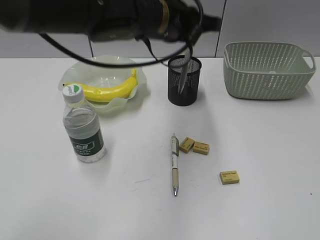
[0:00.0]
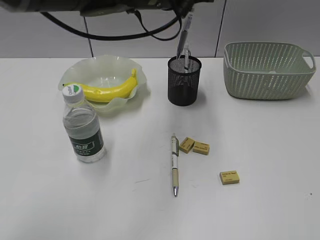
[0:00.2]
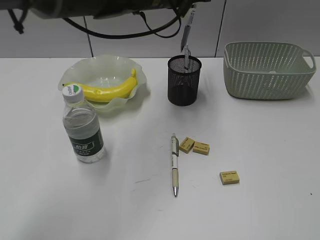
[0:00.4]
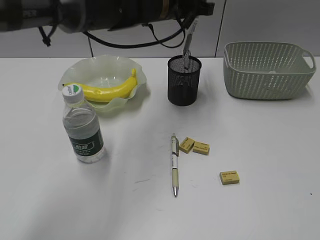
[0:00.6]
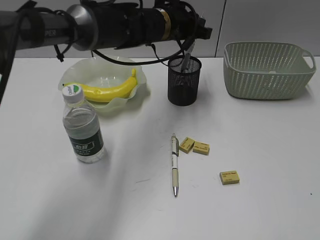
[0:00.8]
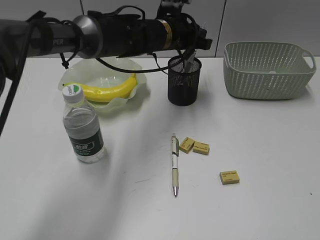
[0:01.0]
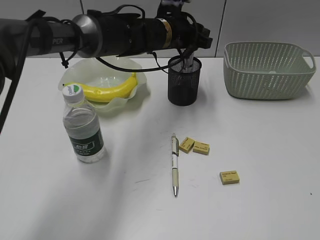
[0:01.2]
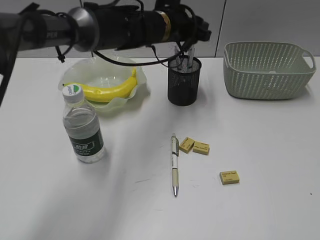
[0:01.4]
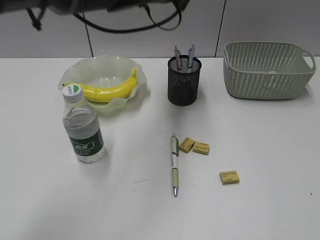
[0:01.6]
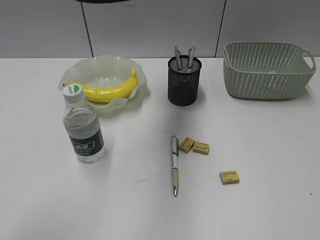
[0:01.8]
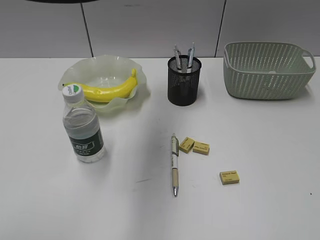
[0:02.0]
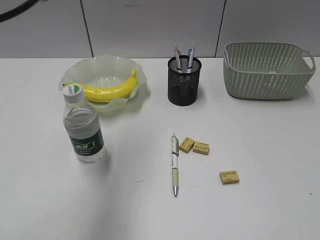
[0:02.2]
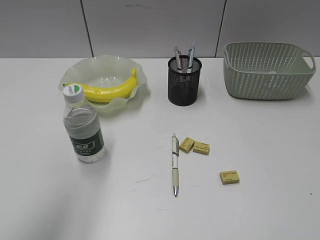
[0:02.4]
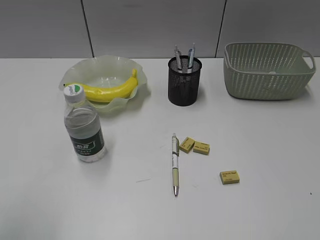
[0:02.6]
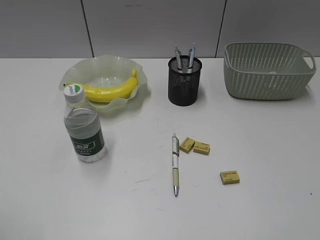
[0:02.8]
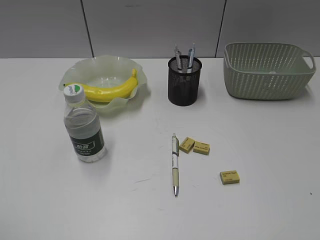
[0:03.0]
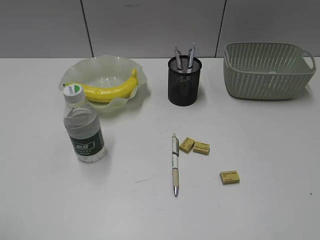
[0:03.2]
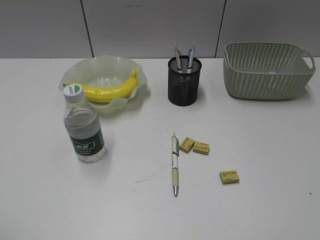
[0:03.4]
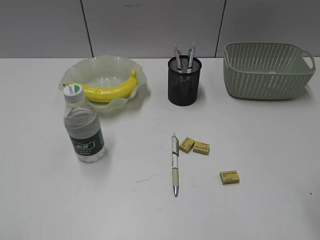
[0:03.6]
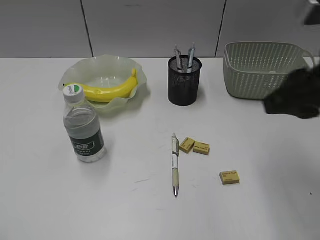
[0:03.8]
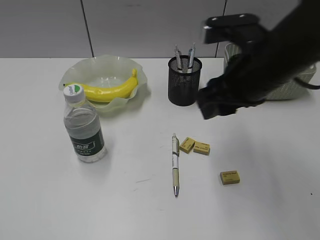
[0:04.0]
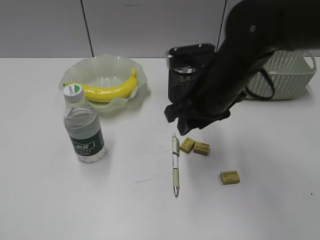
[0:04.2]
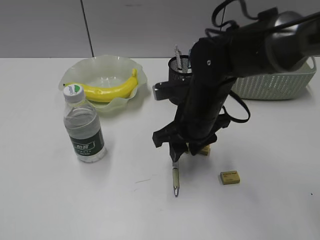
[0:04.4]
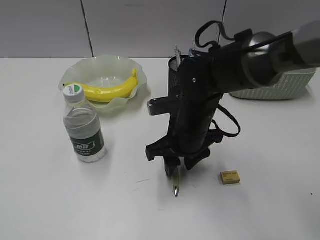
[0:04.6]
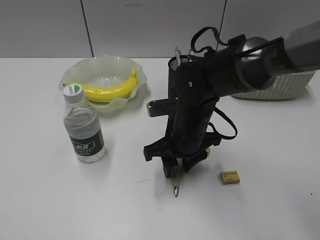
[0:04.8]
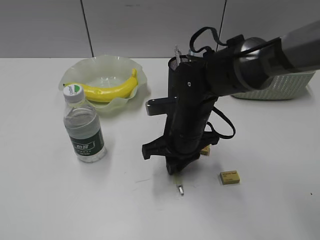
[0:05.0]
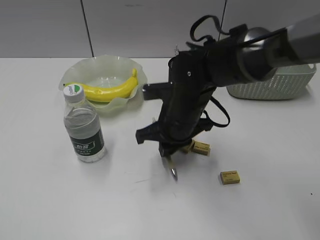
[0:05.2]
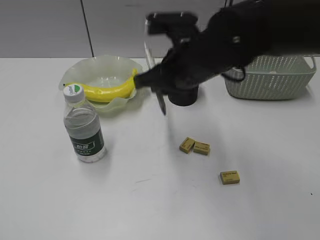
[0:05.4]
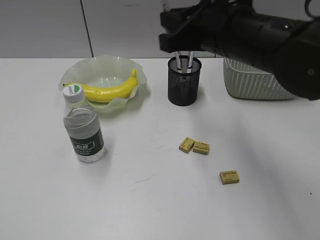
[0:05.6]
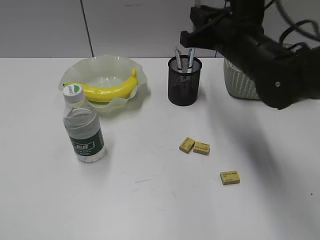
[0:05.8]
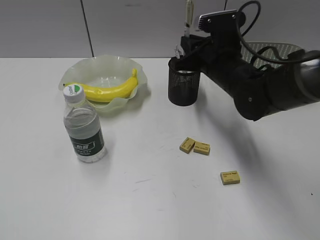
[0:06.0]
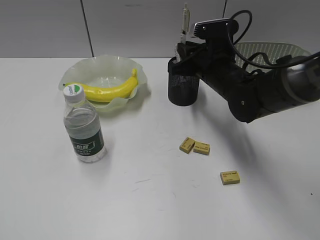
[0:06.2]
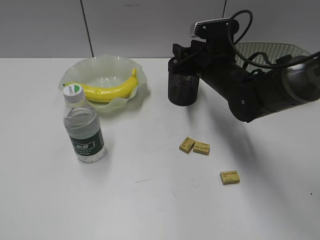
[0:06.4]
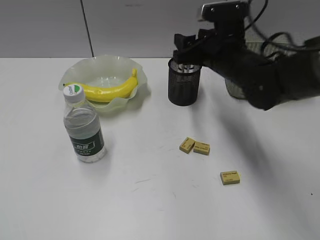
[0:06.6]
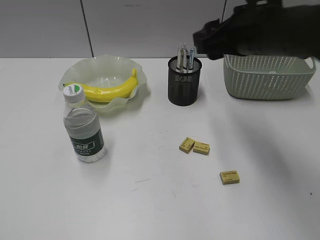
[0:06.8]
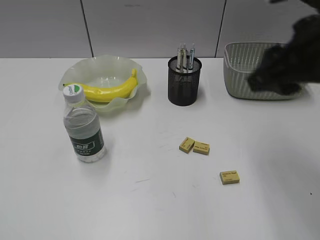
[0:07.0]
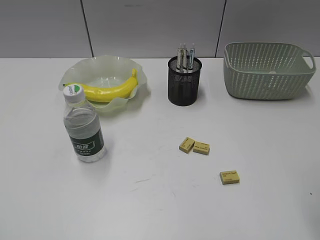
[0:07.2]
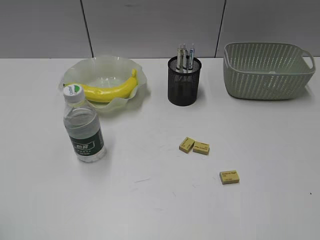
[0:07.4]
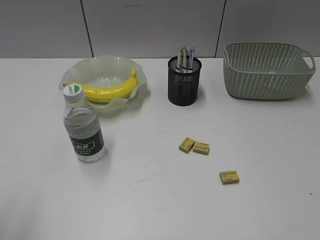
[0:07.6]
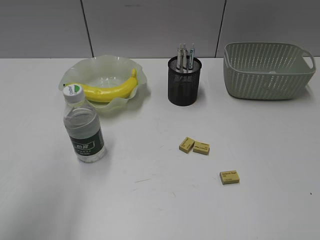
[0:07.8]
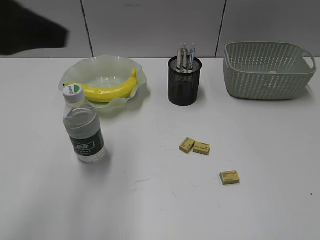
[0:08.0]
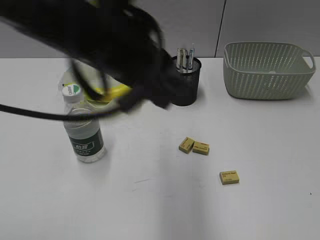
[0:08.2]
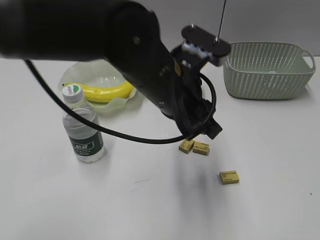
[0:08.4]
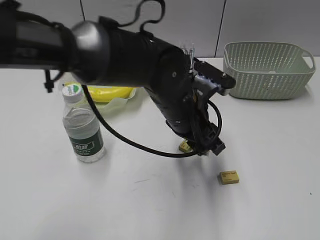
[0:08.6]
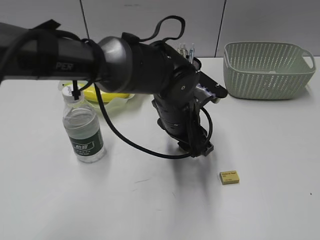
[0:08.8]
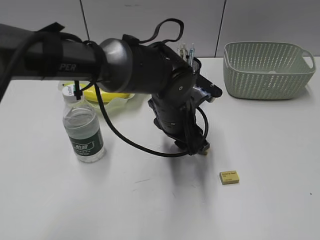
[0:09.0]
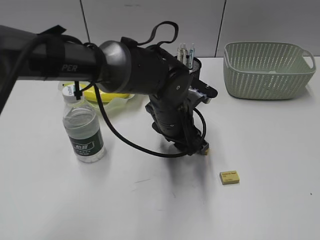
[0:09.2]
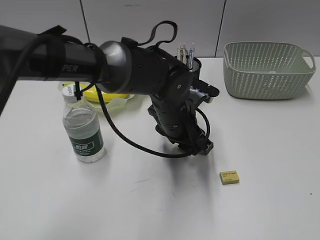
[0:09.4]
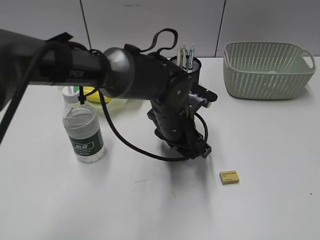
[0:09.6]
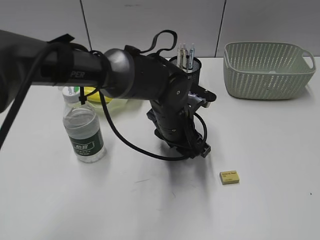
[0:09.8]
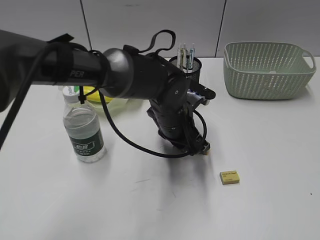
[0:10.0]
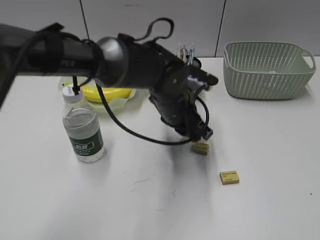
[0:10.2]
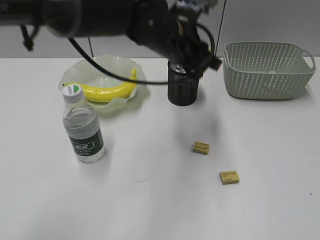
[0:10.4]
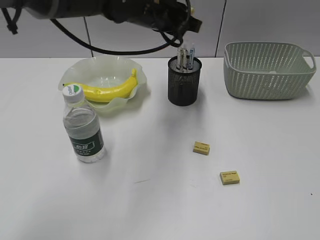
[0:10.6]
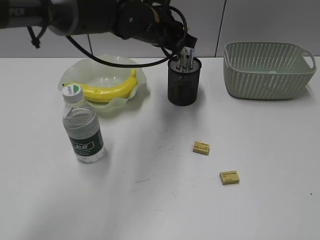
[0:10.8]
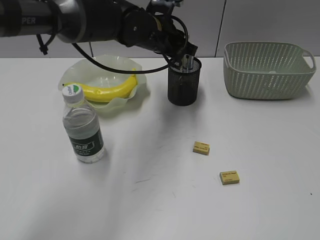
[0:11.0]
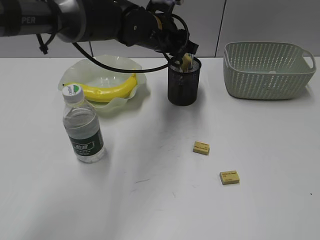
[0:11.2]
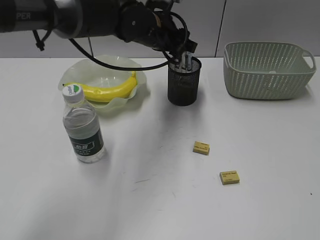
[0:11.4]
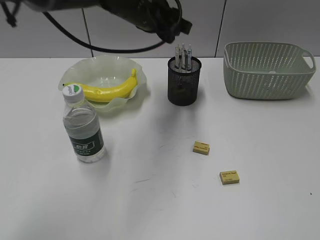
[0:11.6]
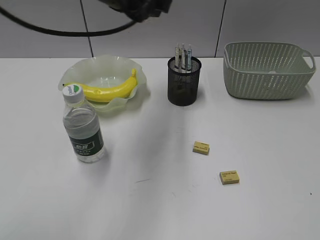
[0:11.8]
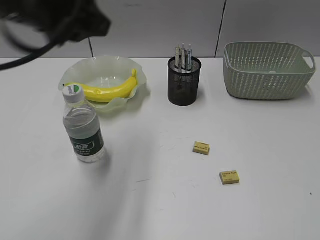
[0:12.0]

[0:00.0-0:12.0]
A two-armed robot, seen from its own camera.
Step, 0:00.0 to 0:01.4: Place the blue pen in pen holder with left gripper.
Step, 0:01.6 to 0:05.0: Grasp the yellow pen with right gripper.
Step, 0:05.2 to 0:06.6: Place the yellow pen in pen holder with right gripper.
Step, 0:06.8 to 0:10.0: Grasp the eraser with left gripper.
Step, 0:10.2 to 0:11.4: Place the eraser in pen holder with left gripper.
0:00.0 to 0:01.6: The left gripper shifts about 10 cm forward, and opens.
0:01.6 to 0:03.0: The left gripper heads backward and to the left, covering approximately 50 cm, and opens its fingers.
0:03.0 to 0:04.4: The right gripper travels forward, to the left and downward by approximately 40 cm.
0:04.4 to 0:06.0: The right gripper is displaced forward and to the right by about 10 cm, goes upward and returns, about 15 cm each way, and closes its fingers.
0:06.0 to 0:07.6: The right gripper heads backward and to the right, covering some 40 cm, and opens; the left gripper moves forward, some 5 cm.
0:07.6 to 0:09.0: The left gripper moves to the right, forward and downward, approximately 50 cm.
0:09.0 to 0:10.4: The left gripper is displaced upward by some 10 cm, and closes up.
0:10.4 to 0:12.0: The left gripper goes roughly 20 cm to the left, upward and backward.

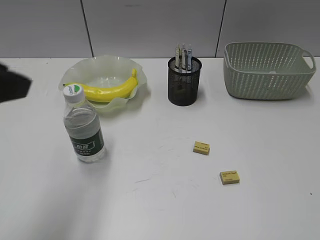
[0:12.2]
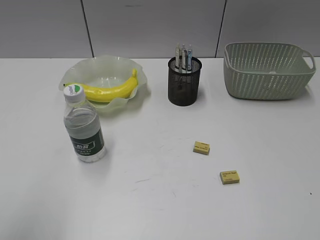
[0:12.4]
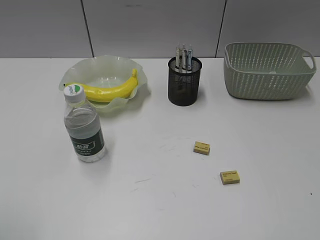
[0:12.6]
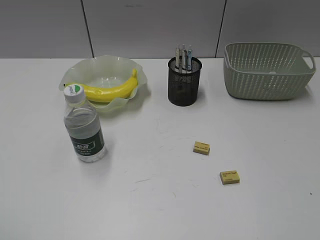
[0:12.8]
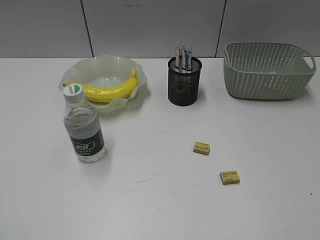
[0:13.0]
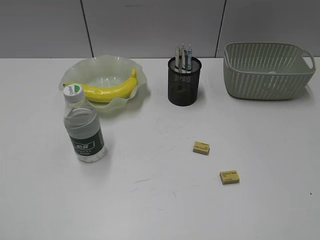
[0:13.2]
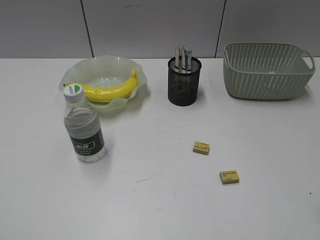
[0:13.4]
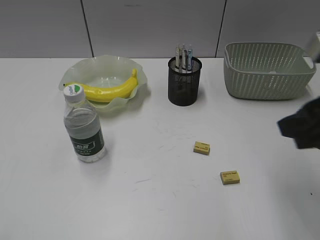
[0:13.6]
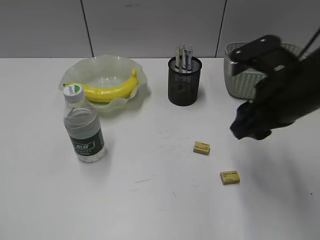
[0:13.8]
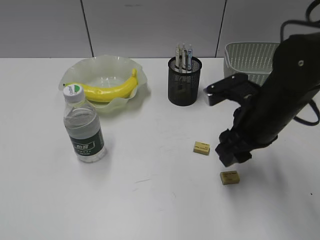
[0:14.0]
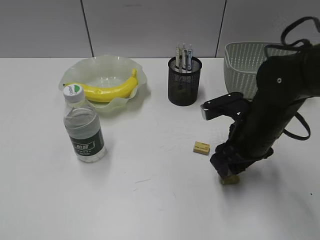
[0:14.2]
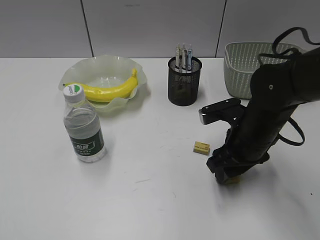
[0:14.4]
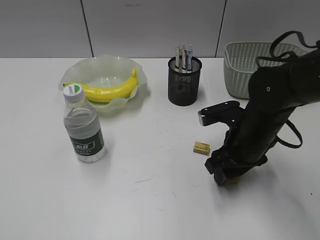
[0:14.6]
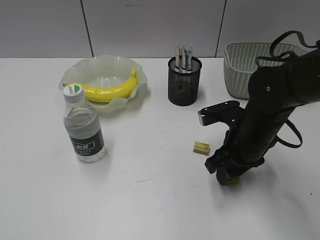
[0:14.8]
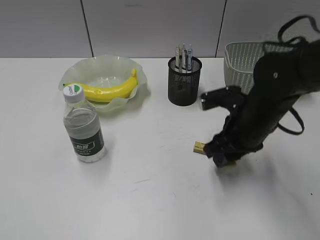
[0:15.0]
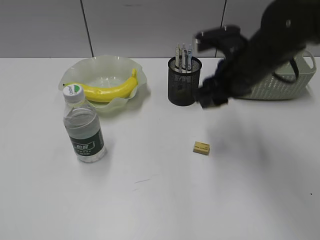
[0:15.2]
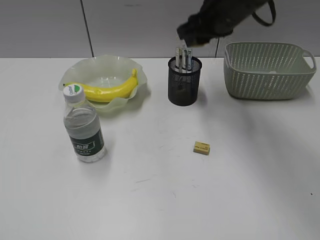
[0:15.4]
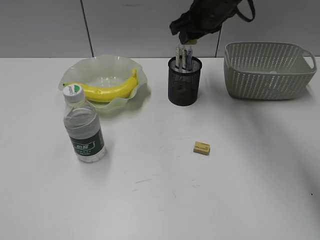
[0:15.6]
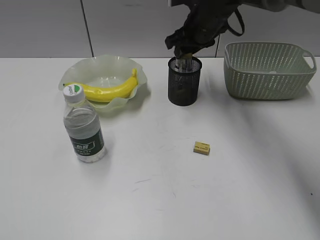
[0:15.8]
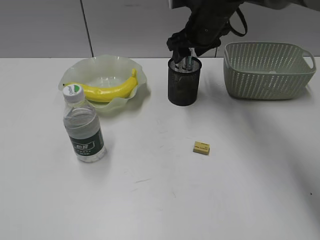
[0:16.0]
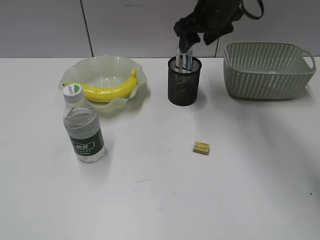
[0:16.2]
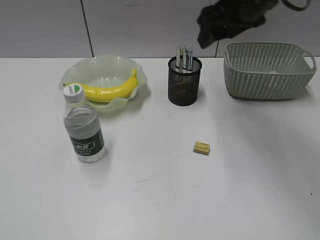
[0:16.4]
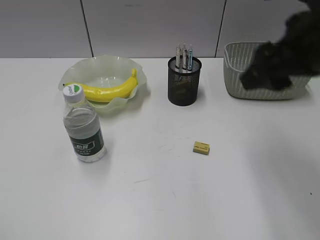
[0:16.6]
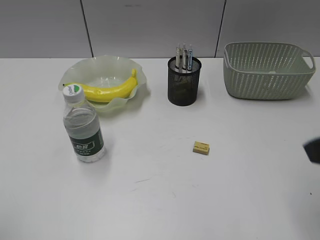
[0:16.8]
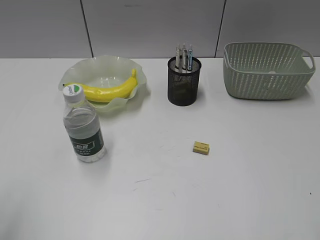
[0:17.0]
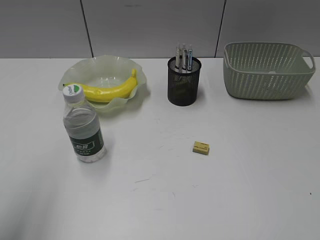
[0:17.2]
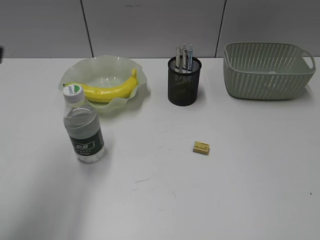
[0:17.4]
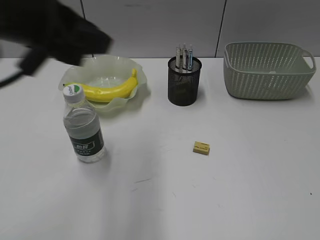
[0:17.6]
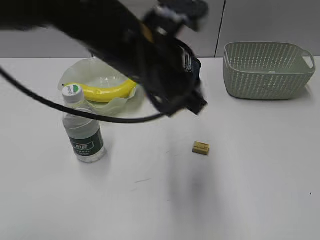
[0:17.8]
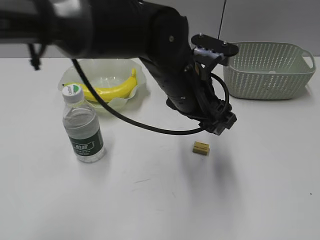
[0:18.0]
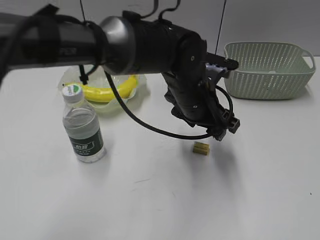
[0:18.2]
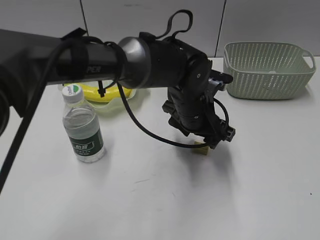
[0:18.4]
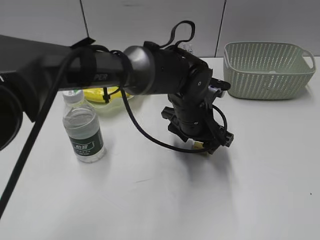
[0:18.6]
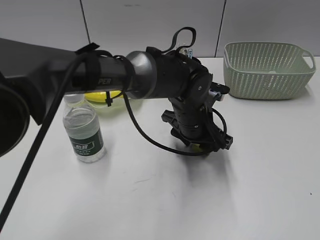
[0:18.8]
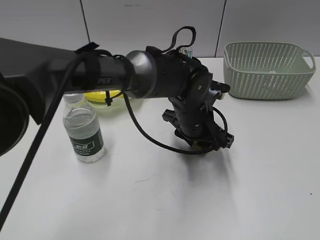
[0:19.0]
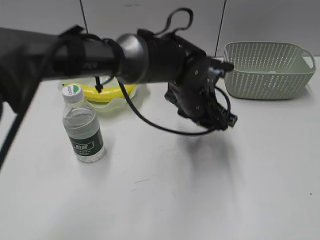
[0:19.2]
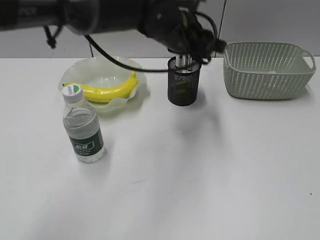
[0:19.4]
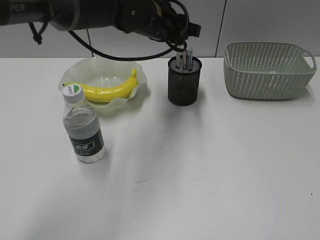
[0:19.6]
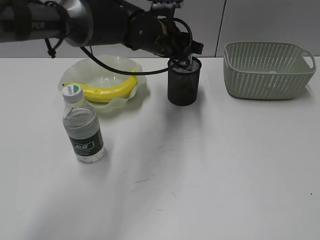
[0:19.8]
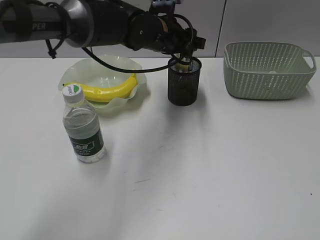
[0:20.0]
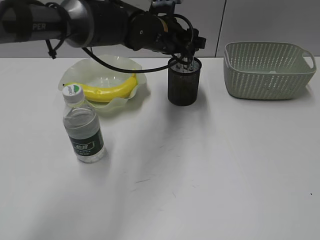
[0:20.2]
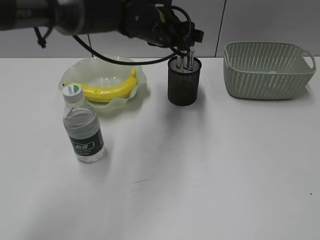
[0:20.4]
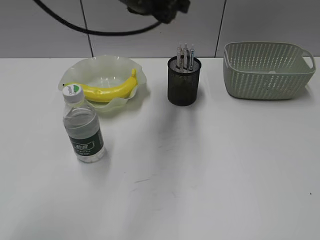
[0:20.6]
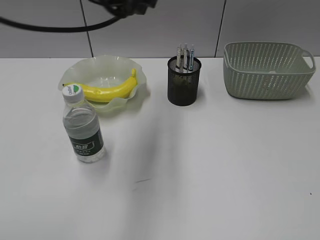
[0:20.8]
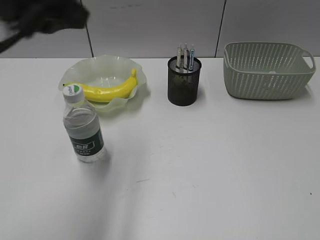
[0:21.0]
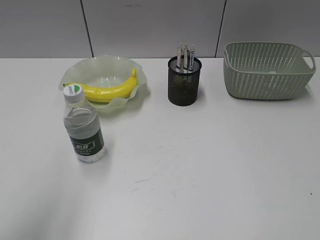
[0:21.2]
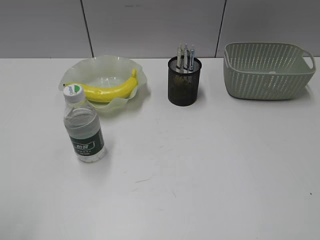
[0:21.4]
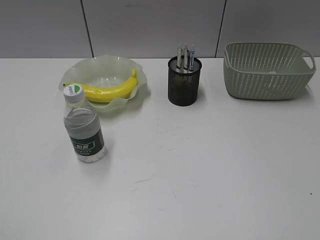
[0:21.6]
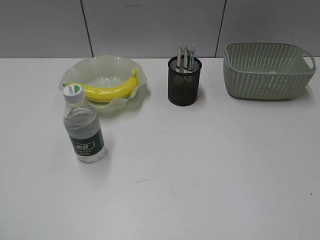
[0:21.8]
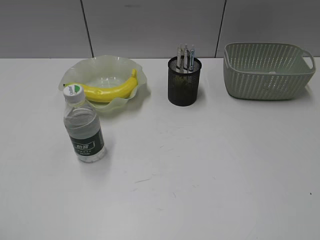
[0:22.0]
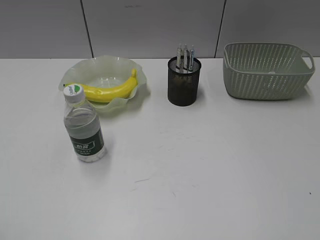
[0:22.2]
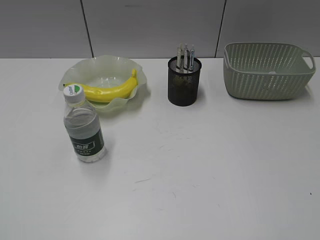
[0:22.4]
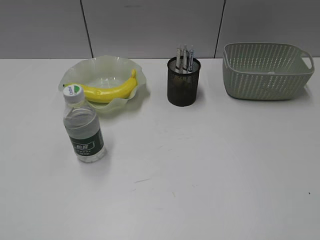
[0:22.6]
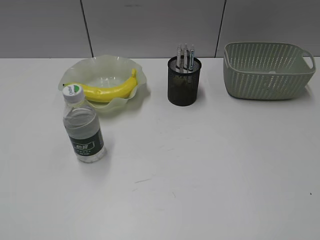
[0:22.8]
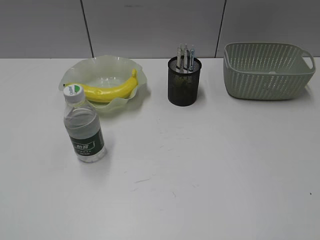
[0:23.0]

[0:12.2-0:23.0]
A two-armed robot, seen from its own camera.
Step, 0:12.2 to 0:14.8: Grasp the eraser with right gripper.
Step, 0:15.0 to 0:16.0: Place the eraser in pen holder with right gripper.
Step, 0:16.2 to 0:19.0: Grasp the eraser with left gripper.
Step, 0:19.2 to 0:20.2: Place the eraser in pen holder with left gripper.
0:12.2 to 0:13.8: The left gripper is displaced backward and to the left by some 20 cm; the right gripper goes roughly 25 cm forward and to the left.
0:13.8 to 0:15.2: The right gripper is displaced forward by some 10 cm, and reaches about 10 cm downward, then returns.
0:15.2 to 0:16.8: The right gripper shifts some 20 cm backward, to the right and upward; the left gripper moves roughly 5 cm, and closes up.
0:16.8 to 0:18.4: The right gripper heads backward and to the right, covering roughly 15 cm. The left gripper goes some 50 cm to the right, forward and downward, and opens its fingers.
0:18.4 to 0:20.0: The left gripper travels forward, upward and to the left by roughly 15 cm, and closes, then reopens.
0:20.0 to 0:21.4: The left gripper goes roughly 50 cm backward and to the left.
